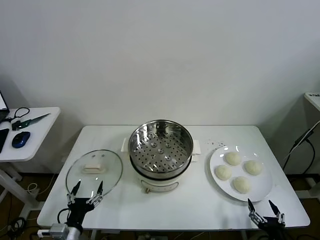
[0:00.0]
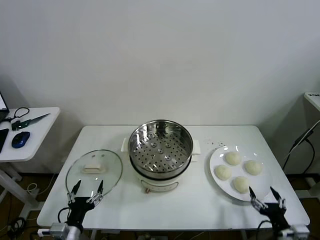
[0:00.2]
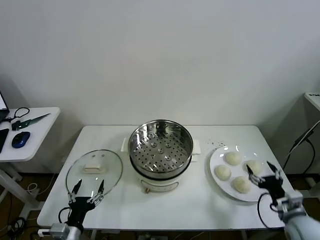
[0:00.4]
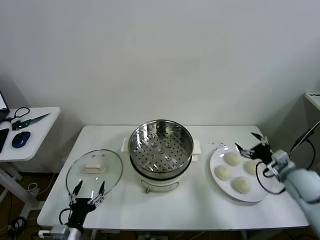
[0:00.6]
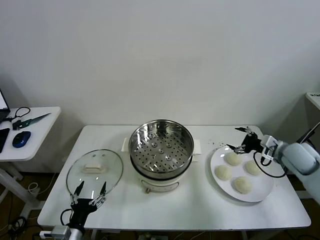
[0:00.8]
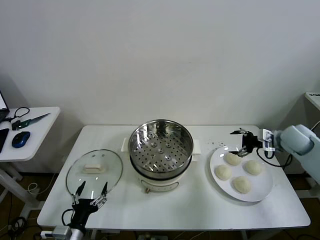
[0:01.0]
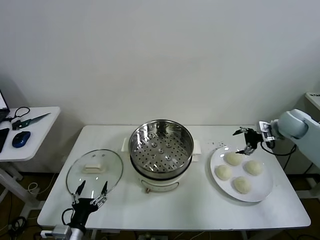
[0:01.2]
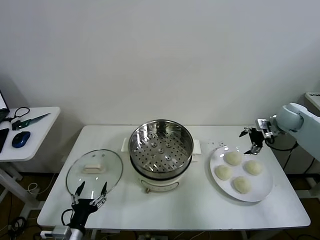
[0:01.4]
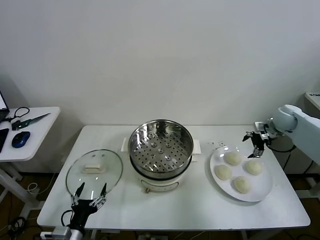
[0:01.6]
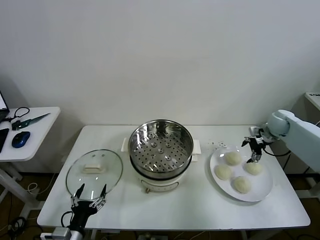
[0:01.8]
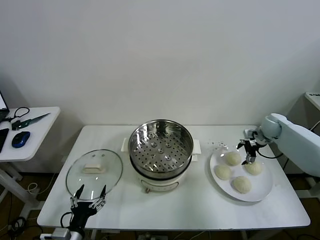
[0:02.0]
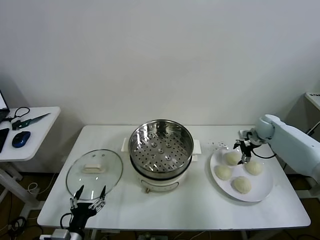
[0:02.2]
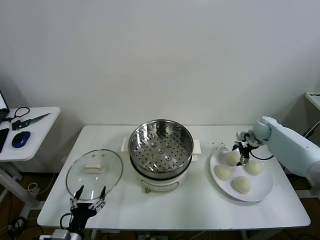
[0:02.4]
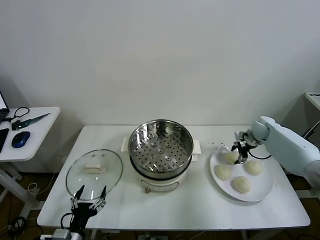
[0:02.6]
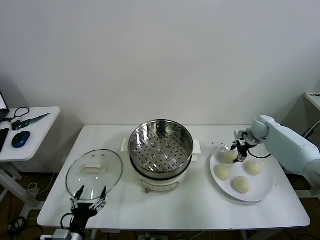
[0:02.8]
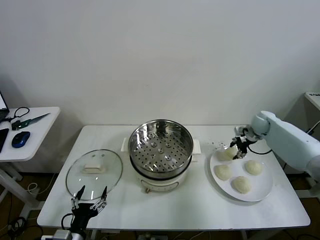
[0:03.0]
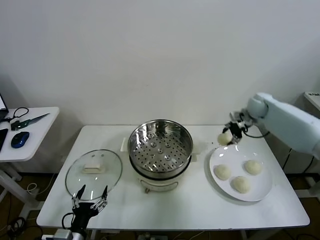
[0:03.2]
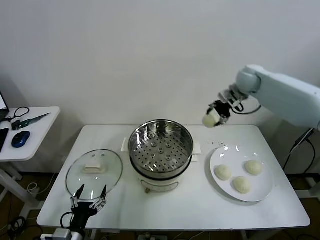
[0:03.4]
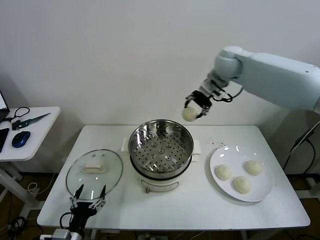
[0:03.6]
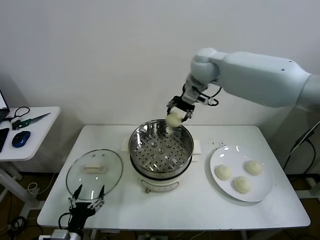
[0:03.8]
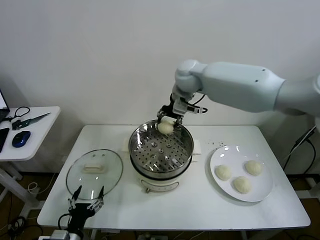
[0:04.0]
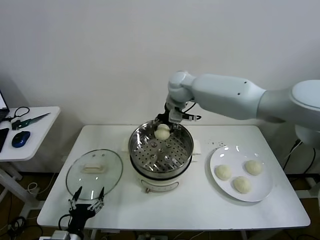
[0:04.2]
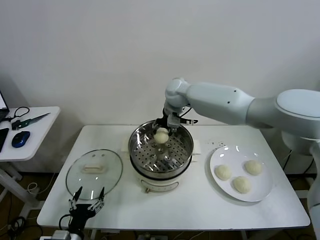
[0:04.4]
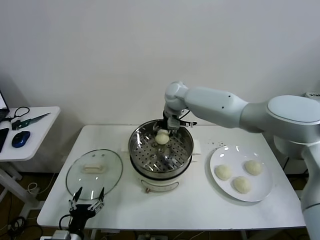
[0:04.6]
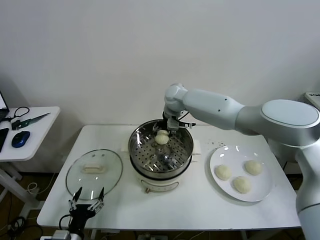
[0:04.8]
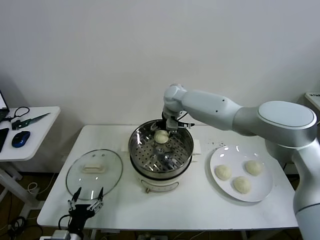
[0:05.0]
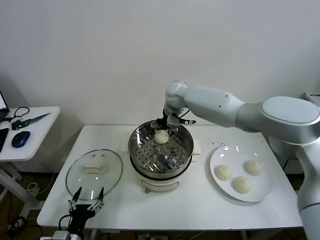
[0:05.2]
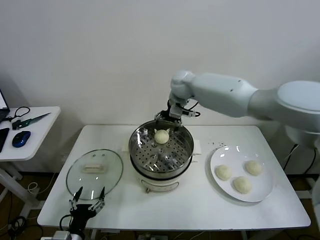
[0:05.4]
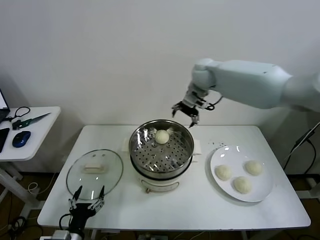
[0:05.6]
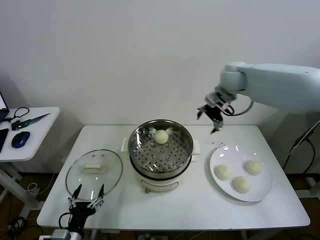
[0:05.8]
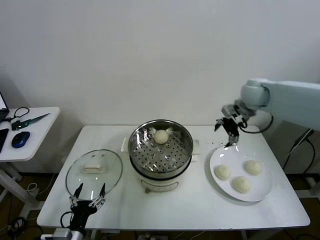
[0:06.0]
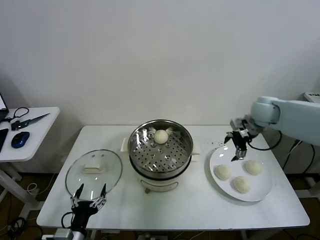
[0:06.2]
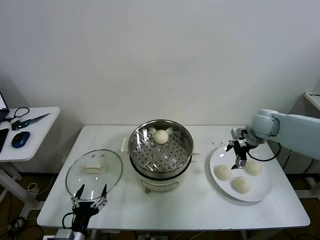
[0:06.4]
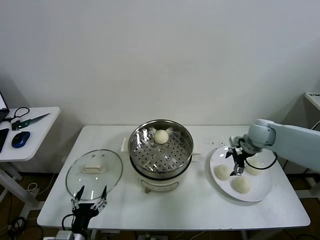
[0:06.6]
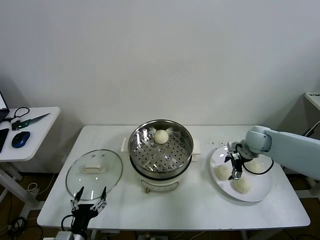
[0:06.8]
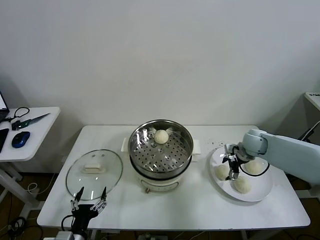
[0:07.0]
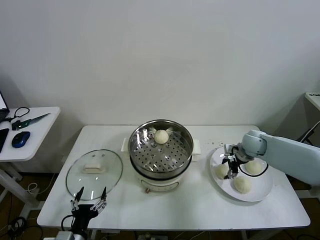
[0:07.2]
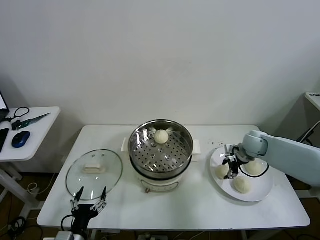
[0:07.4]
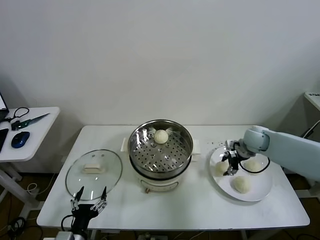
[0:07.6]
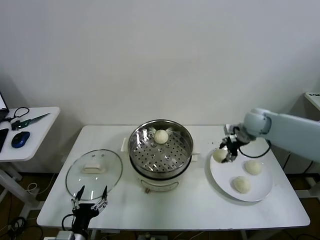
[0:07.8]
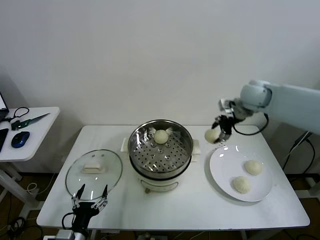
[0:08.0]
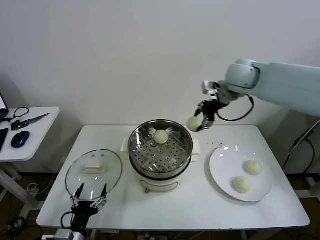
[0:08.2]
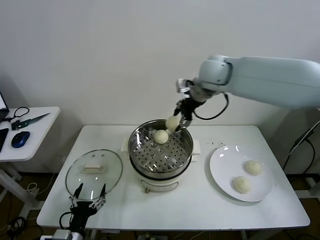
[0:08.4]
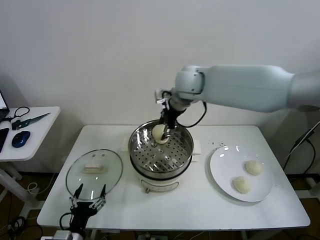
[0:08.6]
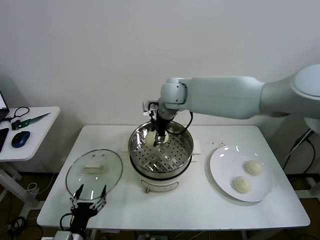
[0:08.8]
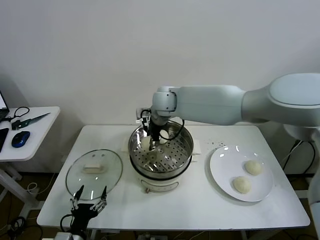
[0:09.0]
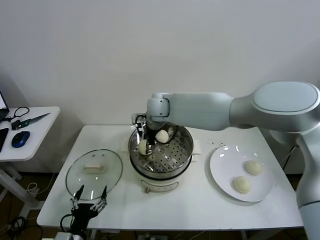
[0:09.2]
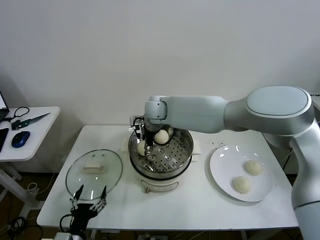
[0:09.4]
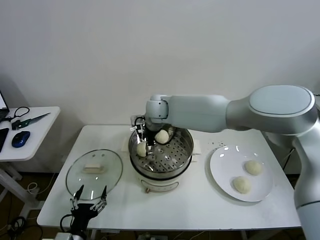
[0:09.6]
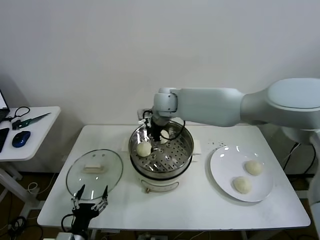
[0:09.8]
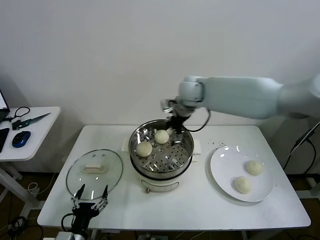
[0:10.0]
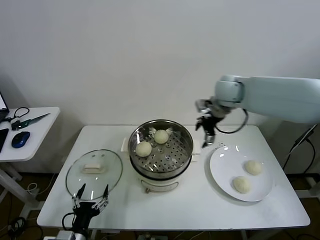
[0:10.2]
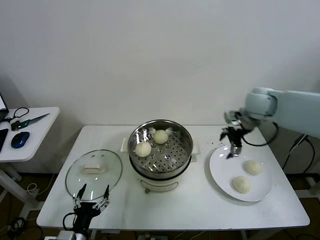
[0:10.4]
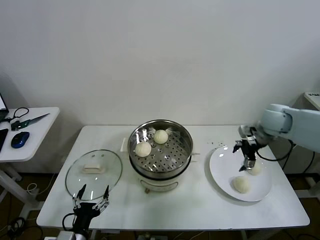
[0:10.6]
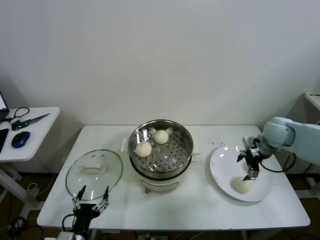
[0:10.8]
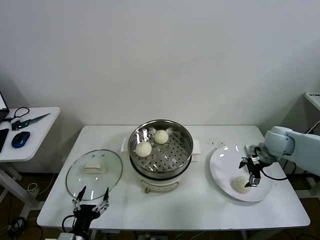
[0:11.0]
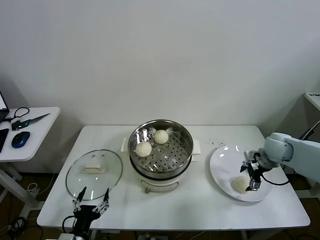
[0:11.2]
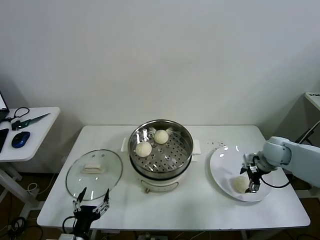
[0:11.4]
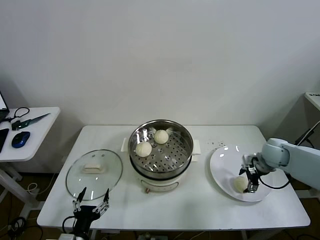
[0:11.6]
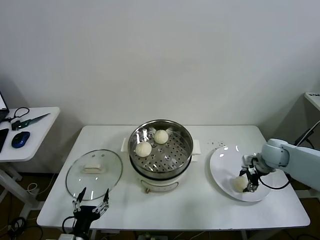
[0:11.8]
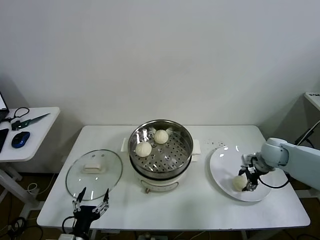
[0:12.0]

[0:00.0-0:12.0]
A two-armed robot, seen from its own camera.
Task of the whole recording: take steamed baozi put them in steamer then cover it.
Step, 0:00.0 to 0:02.6: Grasp the baozi in the plate with right gripper.
Step, 0:02.8 to 0:05.2: Place the baozi on the steamer with right gripper.
Step, 0:05.4 to 0:07.2: Grasp the baozi in the plate with right gripper.
Step, 0:07.6 to 0:09.6: Place the baozi on the steamer with right gripper.
Step, 0:09.8 to 0:11.8: Grasp the baozi in the plate with right gripper.
0:01.6 to 0:03.0: The right gripper goes some 5 cm to the left, and closes its fingers.
0:03.0 to 0:04.4: The right gripper goes about 35 cm to the left.
0:04.4 to 0:06.0: The right gripper shifts approximately 25 cm to the right, and opens.
0:06.0 to 0:07.6: The right gripper travels downward by some 15 cm, and closes its fingers.
0:07.6 to 0:09.0: The right gripper is displaced to the left by approximately 35 cm.
0:09.0 to 0:10.4: The right gripper moves to the right, approximately 30 cm, and opens up.
0:10.4 to 0:12.0: The right gripper shifts roughly 20 cm downward and to the right, and closes its fingers.

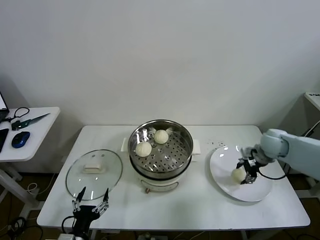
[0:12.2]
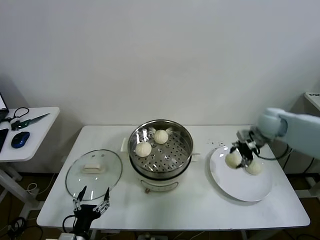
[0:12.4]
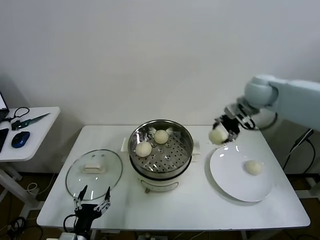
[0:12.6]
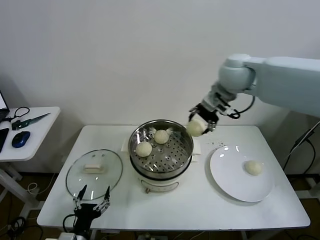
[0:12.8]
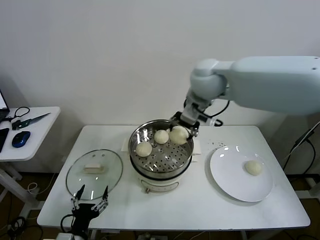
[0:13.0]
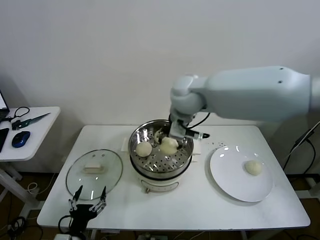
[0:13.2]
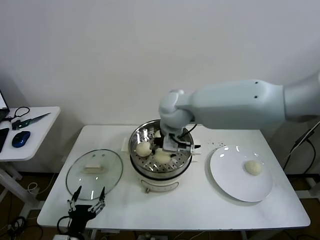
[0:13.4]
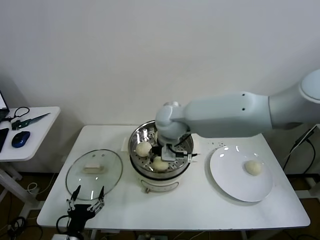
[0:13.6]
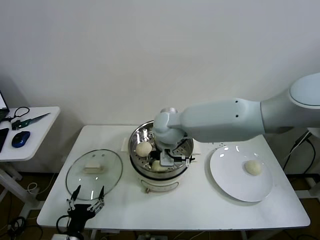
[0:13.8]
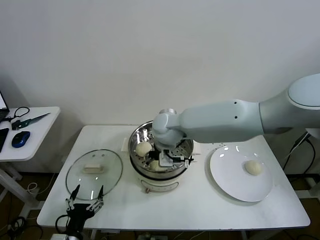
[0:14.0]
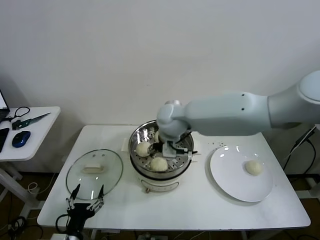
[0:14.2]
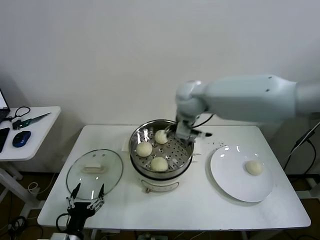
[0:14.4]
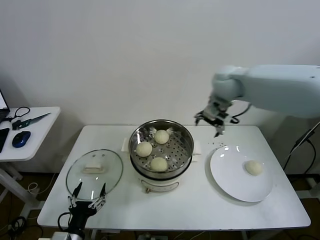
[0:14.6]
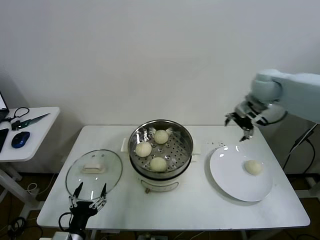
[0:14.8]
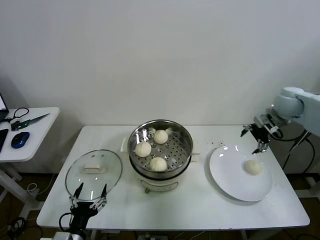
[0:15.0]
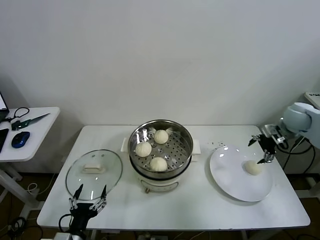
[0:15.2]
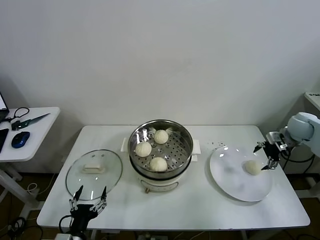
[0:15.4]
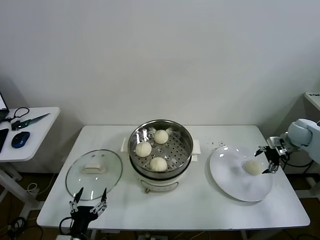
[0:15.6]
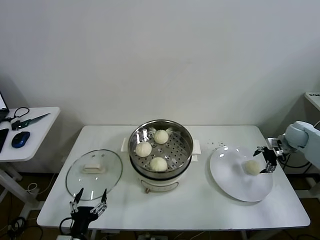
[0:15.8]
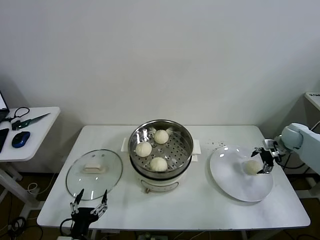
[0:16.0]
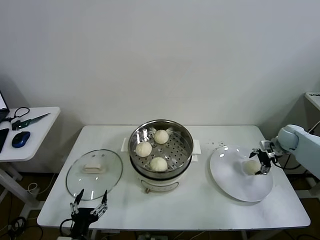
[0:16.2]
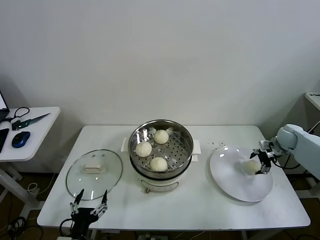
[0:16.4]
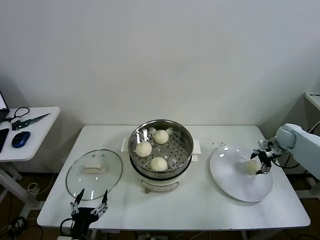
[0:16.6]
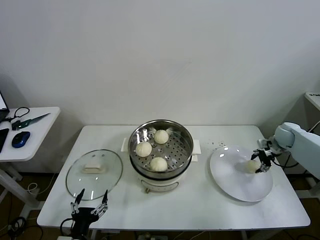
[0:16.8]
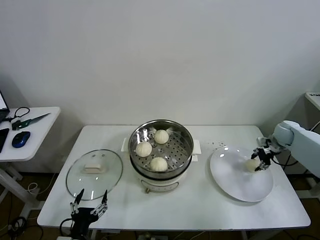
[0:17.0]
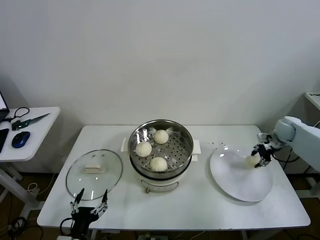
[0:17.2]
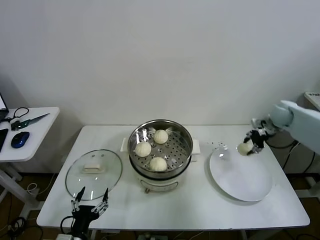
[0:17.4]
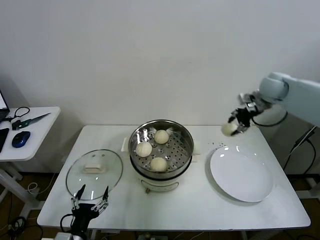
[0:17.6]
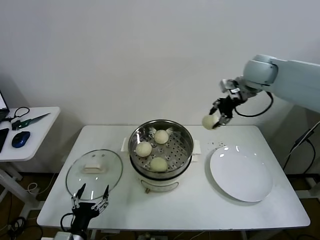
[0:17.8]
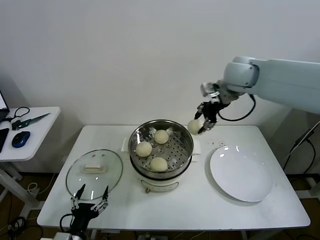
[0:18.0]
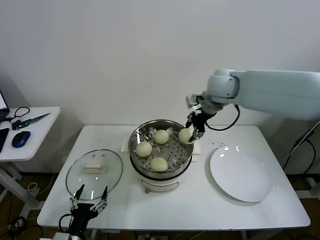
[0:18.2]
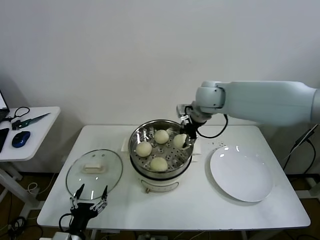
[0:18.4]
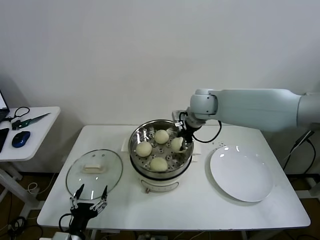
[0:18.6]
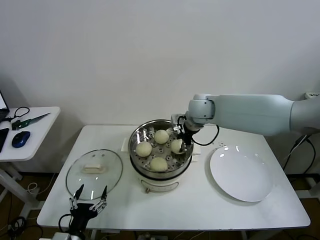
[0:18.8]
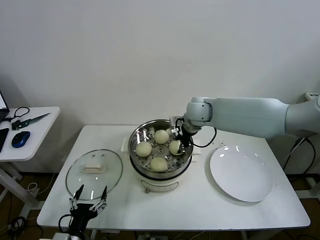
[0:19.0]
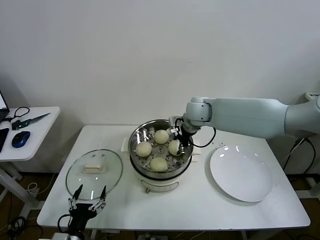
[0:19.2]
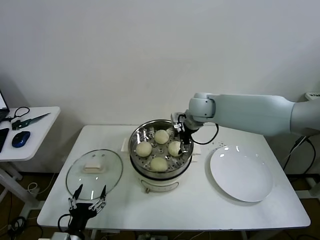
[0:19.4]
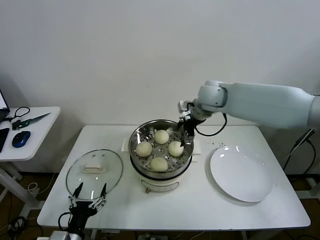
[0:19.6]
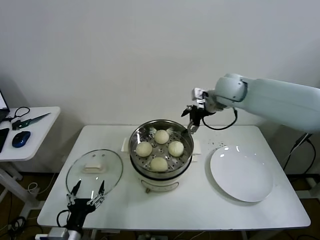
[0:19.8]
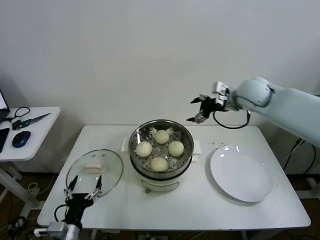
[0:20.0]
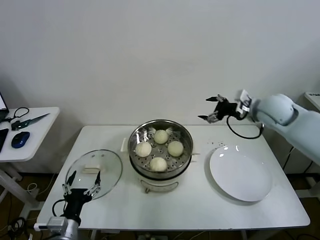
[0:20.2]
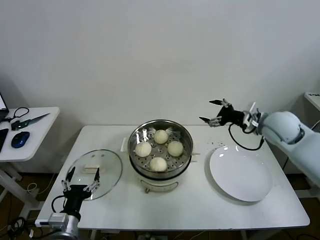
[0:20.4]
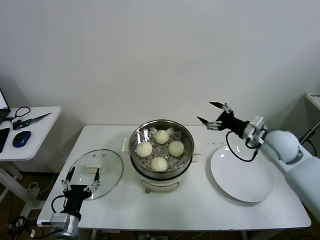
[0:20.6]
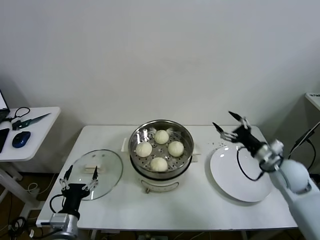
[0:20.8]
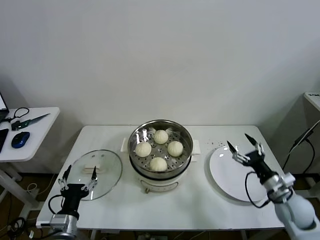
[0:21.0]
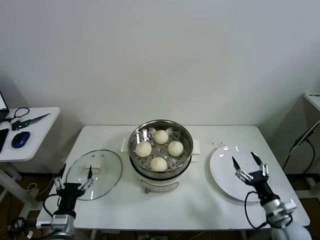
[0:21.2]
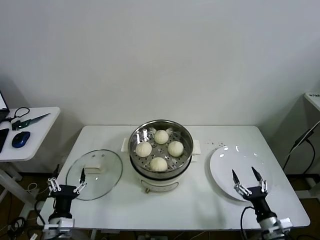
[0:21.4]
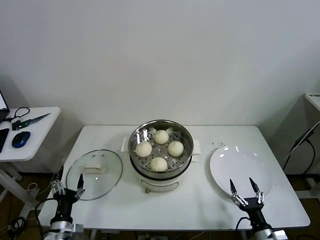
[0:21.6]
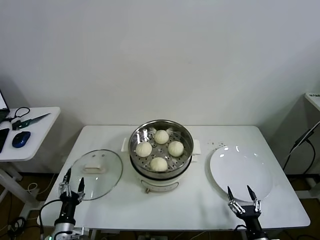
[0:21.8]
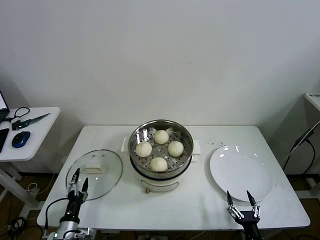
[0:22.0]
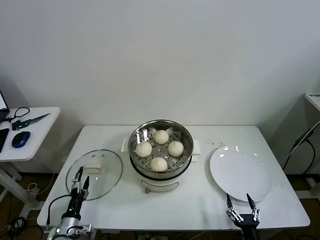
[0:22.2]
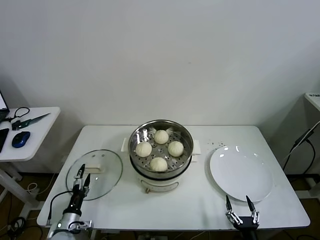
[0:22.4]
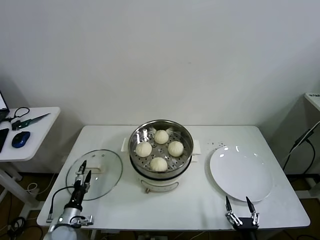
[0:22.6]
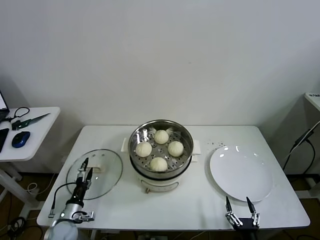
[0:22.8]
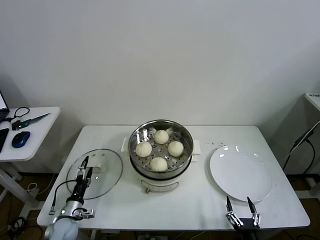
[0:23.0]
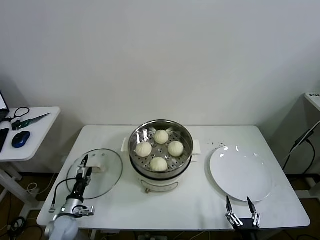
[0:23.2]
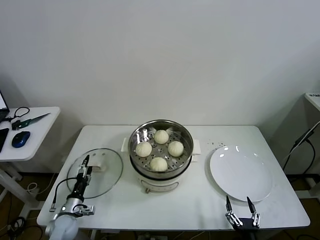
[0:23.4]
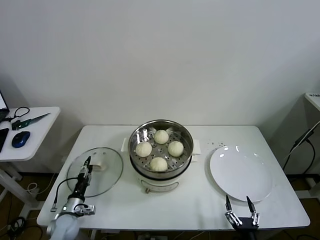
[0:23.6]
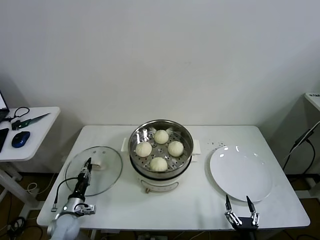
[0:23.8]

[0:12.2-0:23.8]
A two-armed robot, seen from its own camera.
Task of the whole recording: take steamed baozi put them in steamer then cover it.
Step, 0:12.2 to 0:14.2: Place the baozi on the steamer with right gripper.
Step, 0:14.4 to 0:16.8: Grasp the baozi in the plate with right gripper.
Step, 0:17.0 to 0:19.2: Place the baozi on the steamer with right gripper.
0:12.2 to 0:13.6: The right gripper moves to the left, about 35 cm.
0:13.6 to 0:15.0: The right gripper is displaced to the right by about 40 cm, and opens.
0:15.0 to 0:16.6: The right gripper moves downward and to the right, about 20 cm.
0:16.6 to 0:18.0: The right gripper travels to the left and upward by roughly 40 cm, and closes up.
0:18.0 to 0:19.4: The right gripper is displaced downward and to the left by about 15 cm, and opens up.
0:19.4 to 0:21.0: The right gripper heads to the right, backward and downward, covering approximately 40 cm, while the left gripper changes place by approximately 5 cm.
0:21.0 to 0:22.4: The right gripper goes some 25 cm backward, downward and to the left. Meanwhile the left gripper is displaced downward and to the left by roughly 15 cm.
0:22.4 to 0:23.8: The left gripper travels forward by roughly 5 cm, and closes up.
